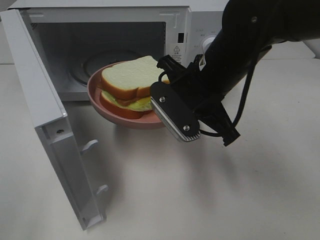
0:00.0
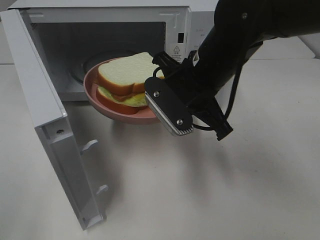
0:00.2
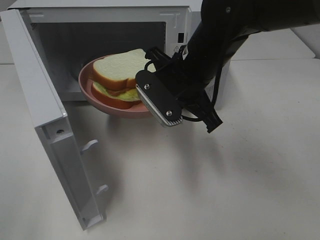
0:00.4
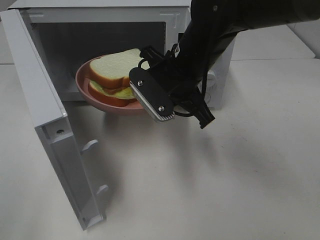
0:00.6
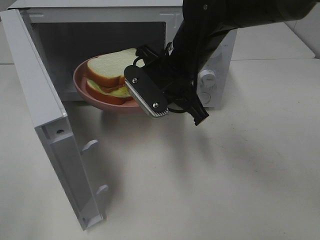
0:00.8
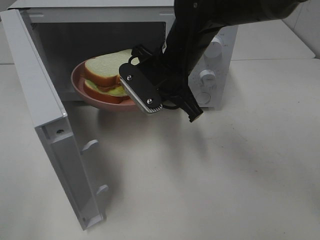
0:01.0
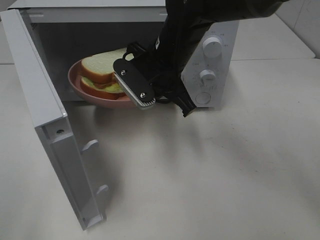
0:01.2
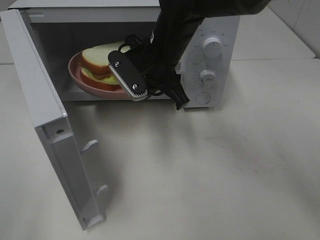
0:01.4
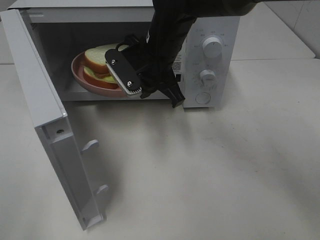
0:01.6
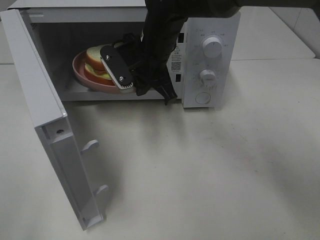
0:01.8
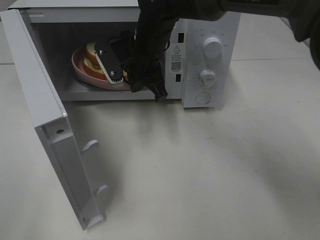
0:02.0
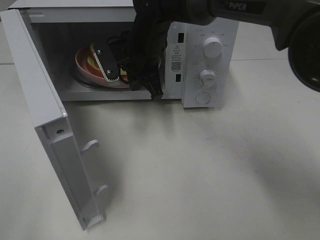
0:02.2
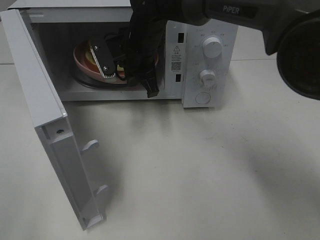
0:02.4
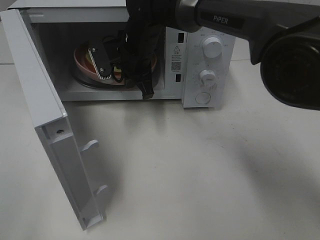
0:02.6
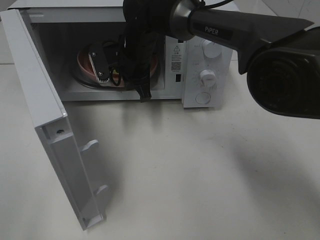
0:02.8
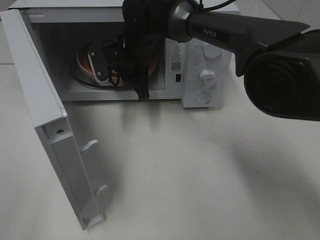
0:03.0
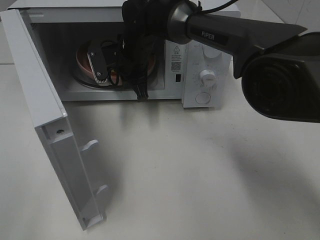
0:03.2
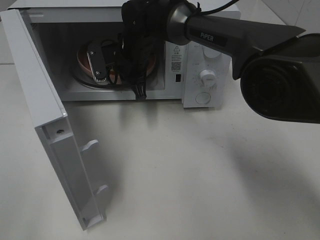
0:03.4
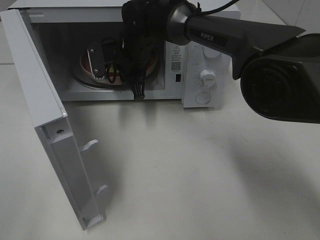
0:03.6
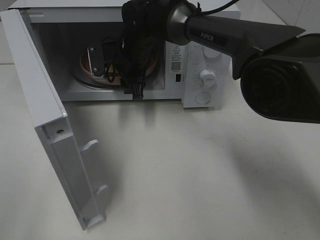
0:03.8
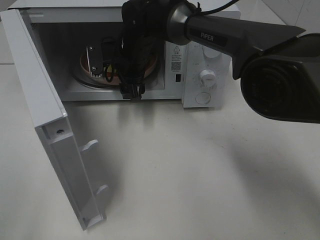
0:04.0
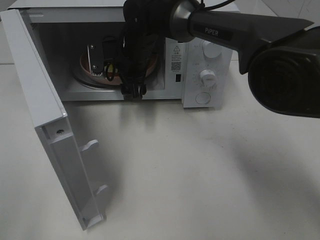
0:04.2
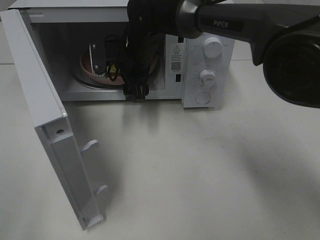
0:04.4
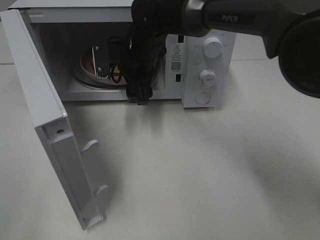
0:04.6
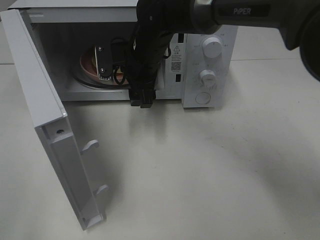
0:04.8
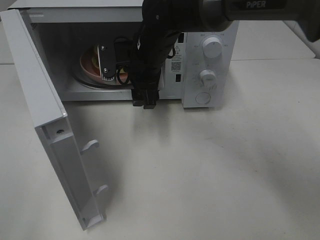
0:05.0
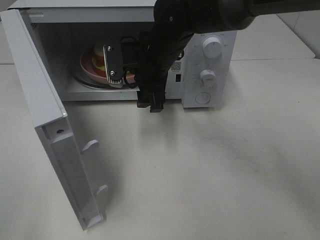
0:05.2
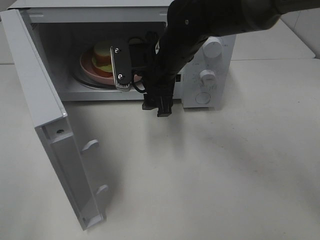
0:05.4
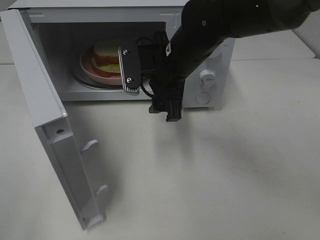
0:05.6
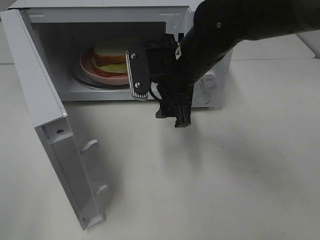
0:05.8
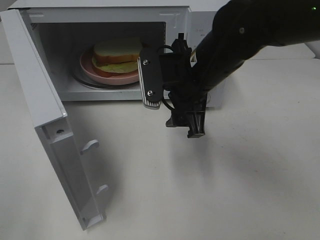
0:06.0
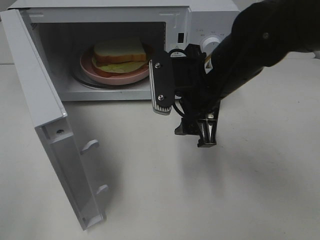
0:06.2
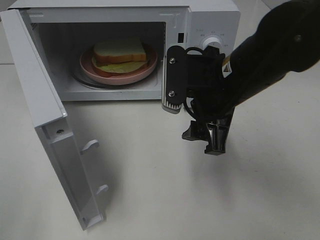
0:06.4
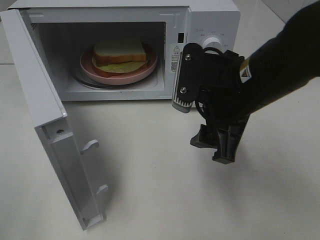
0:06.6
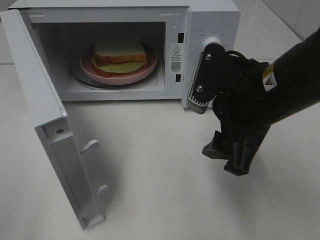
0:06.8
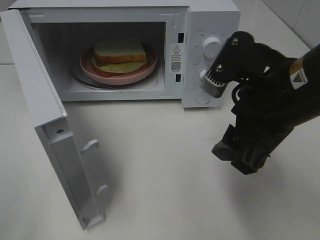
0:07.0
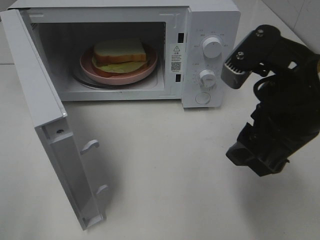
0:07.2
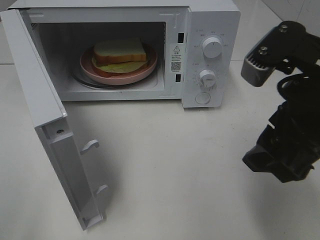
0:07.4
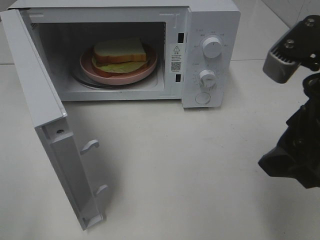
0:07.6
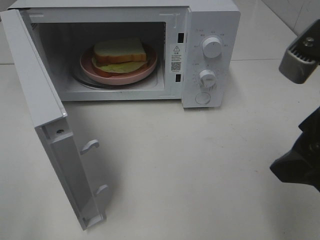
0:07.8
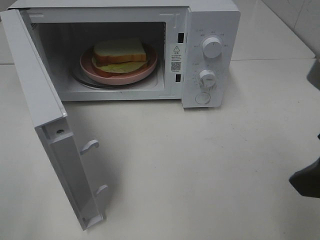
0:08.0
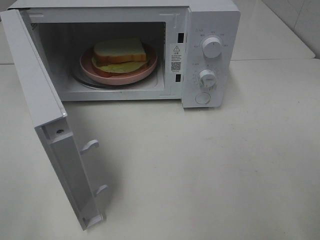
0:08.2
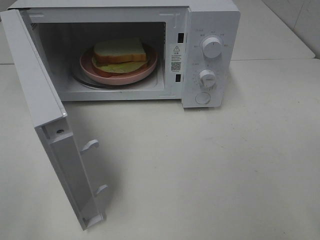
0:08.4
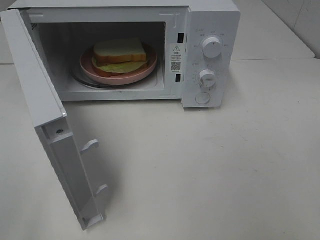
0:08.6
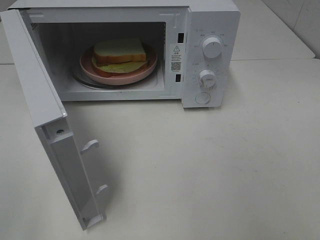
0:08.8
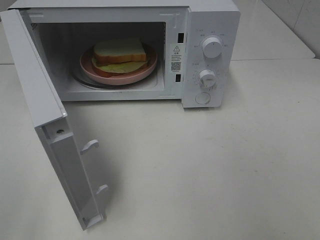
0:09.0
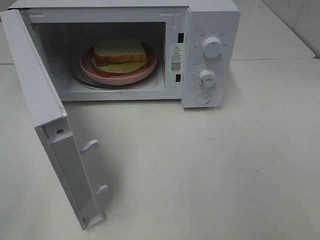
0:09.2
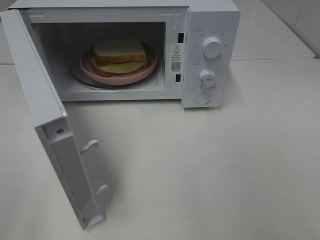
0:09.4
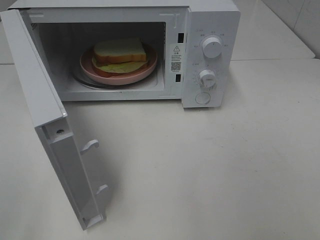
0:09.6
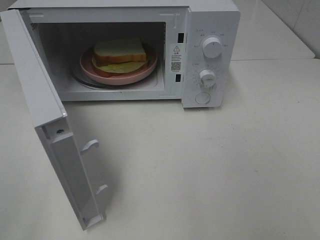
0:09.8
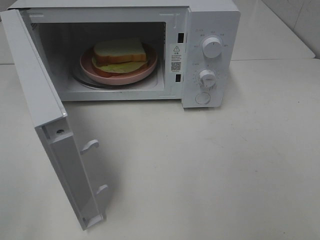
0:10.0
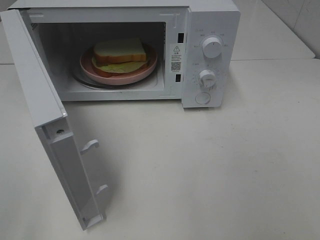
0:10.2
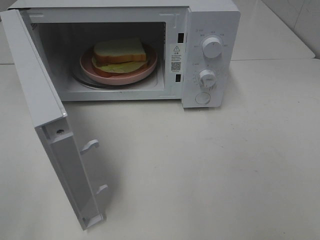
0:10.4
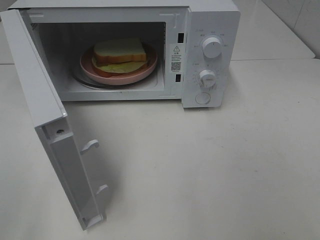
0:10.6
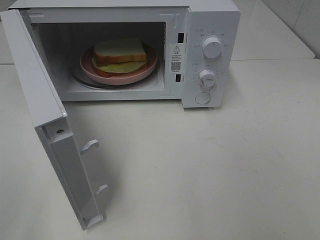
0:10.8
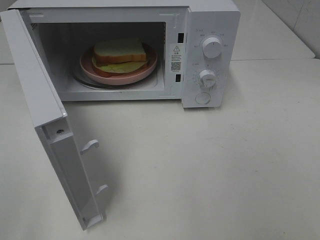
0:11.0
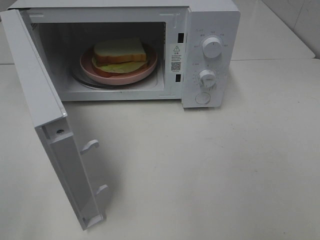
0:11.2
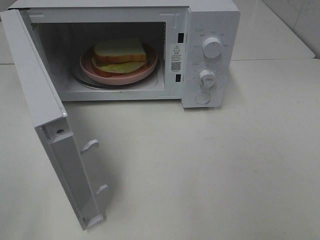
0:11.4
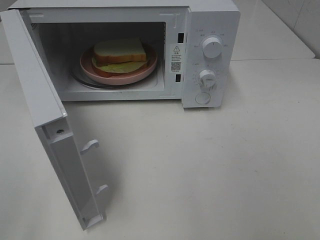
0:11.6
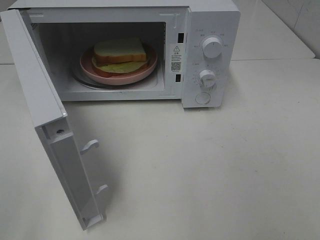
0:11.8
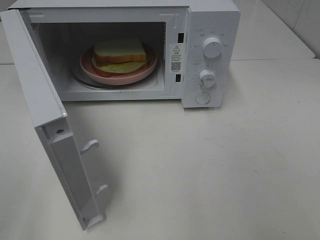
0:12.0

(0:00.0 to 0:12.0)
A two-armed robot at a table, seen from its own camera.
Task of the whole recording: Heat Sandwich.
Step, 0:00.0 - 0:04.2: Right hand: place the plate in the microwave.
0:00.0 - 0:01.6: The right gripper goes approximately 10 cm forward and to the left.
0:01.6 - 0:03.0: The right gripper is displaced forward by about 5 cm.
0:03.0 - 0:04.4: The right gripper opens up.
0:04.4 - 0:06.0: The right gripper goes about 15 cm backward and to the right.
0:06.0 - 0:07.6: The right gripper is displaced backward, to the right and upward by some 20 cm.
0:07.6 - 0:09.0: The right gripper moves to the right and backward, roughly 15 cm.

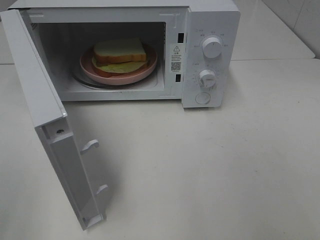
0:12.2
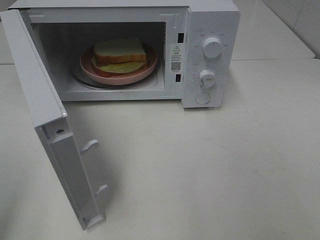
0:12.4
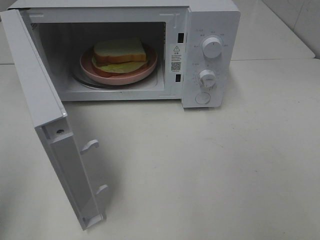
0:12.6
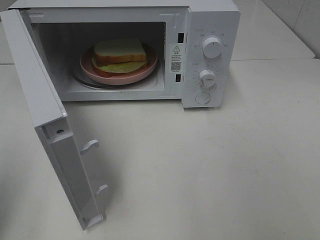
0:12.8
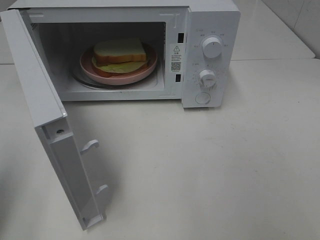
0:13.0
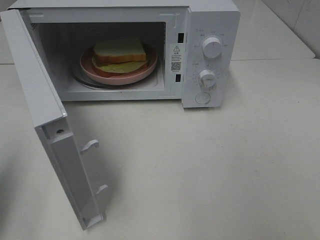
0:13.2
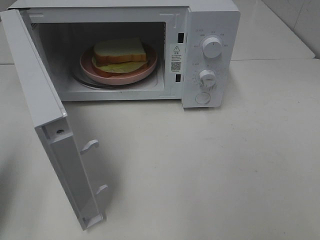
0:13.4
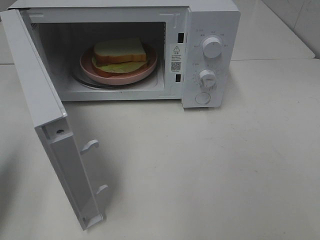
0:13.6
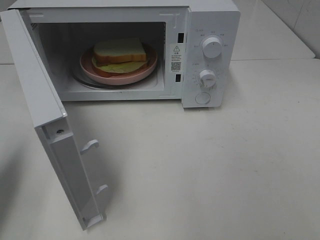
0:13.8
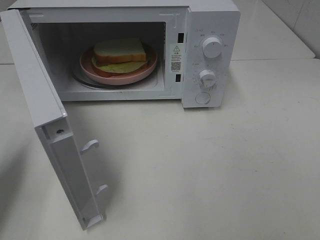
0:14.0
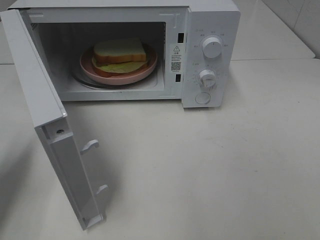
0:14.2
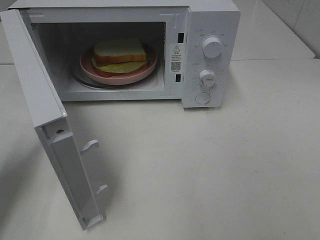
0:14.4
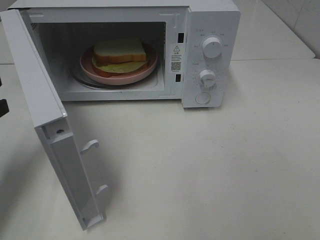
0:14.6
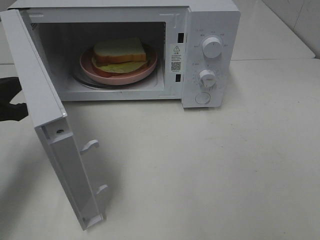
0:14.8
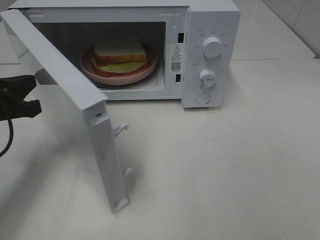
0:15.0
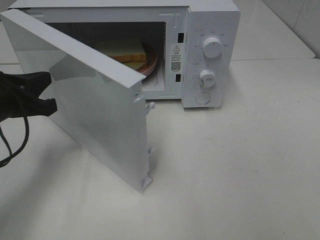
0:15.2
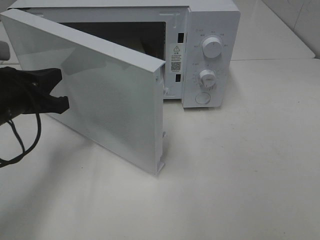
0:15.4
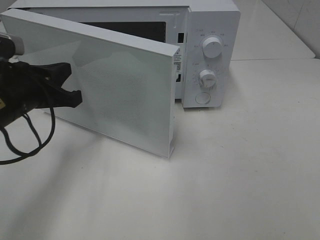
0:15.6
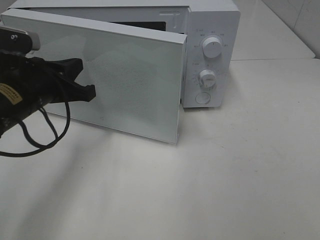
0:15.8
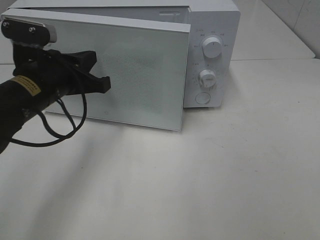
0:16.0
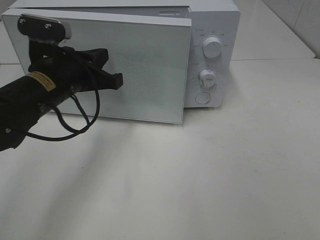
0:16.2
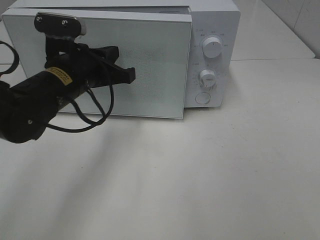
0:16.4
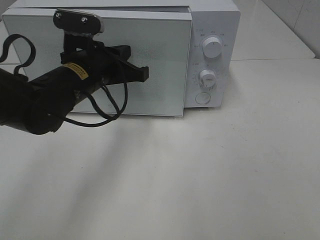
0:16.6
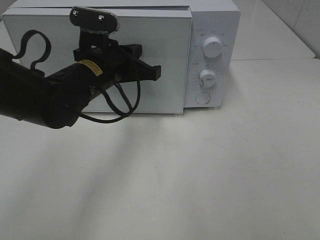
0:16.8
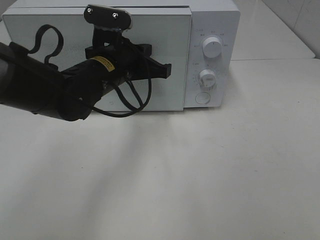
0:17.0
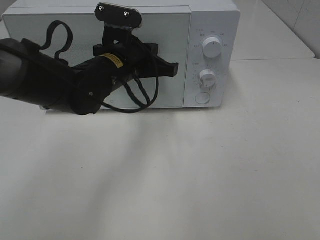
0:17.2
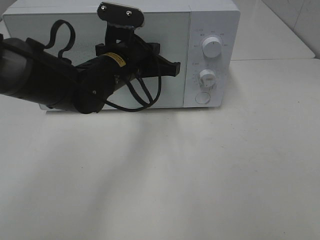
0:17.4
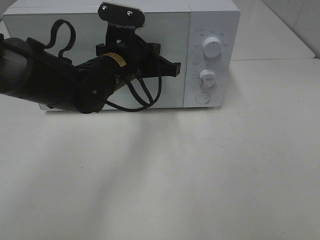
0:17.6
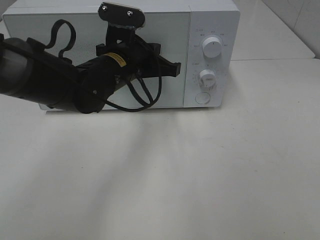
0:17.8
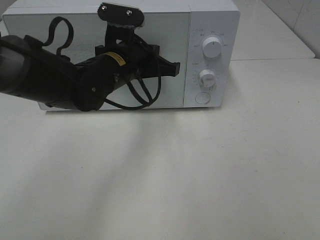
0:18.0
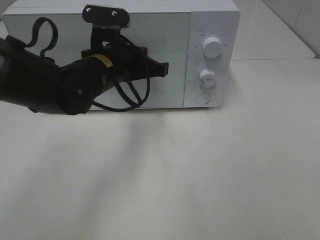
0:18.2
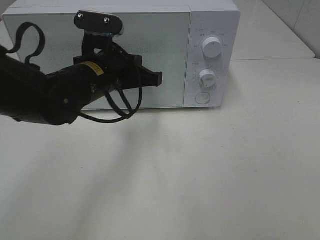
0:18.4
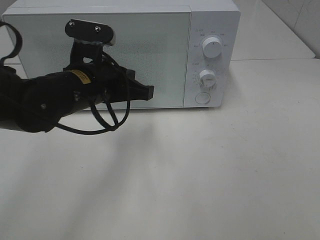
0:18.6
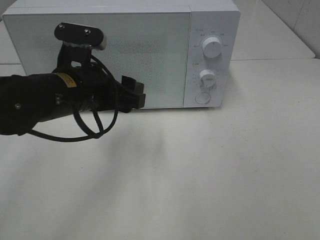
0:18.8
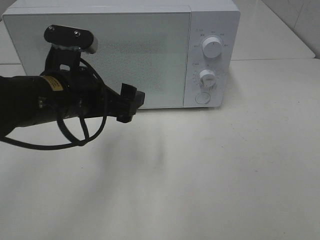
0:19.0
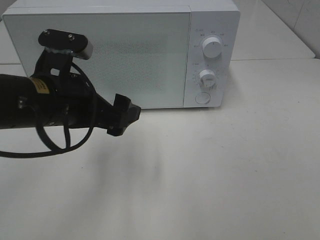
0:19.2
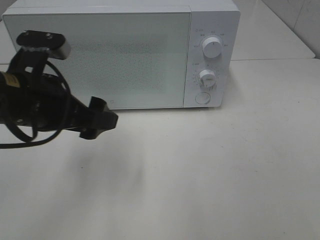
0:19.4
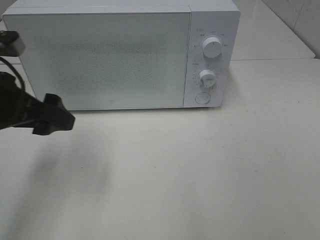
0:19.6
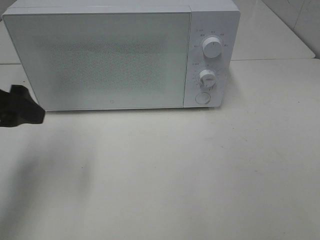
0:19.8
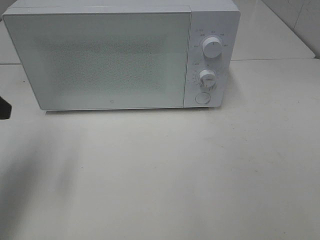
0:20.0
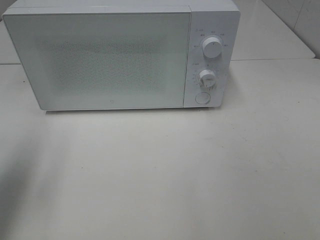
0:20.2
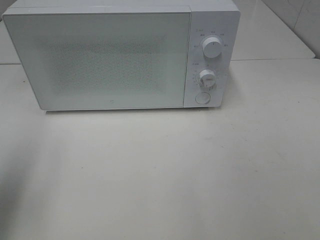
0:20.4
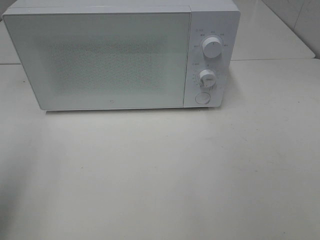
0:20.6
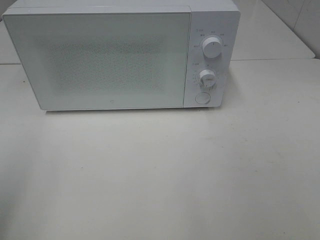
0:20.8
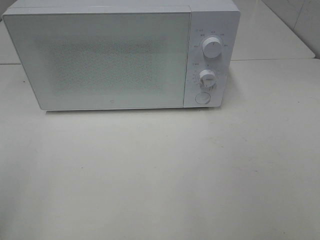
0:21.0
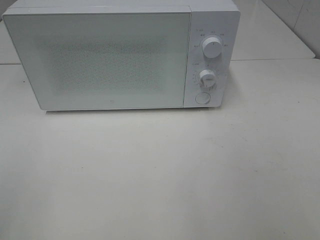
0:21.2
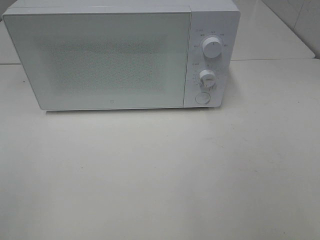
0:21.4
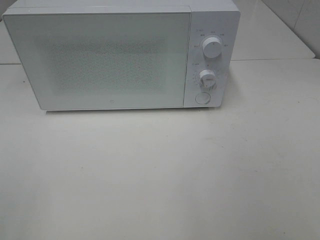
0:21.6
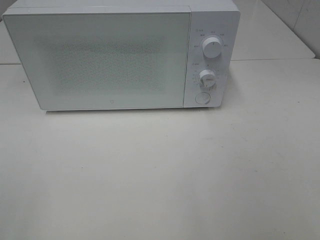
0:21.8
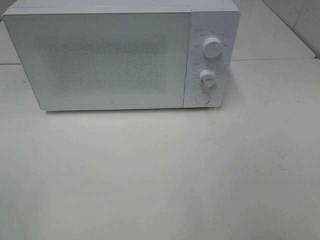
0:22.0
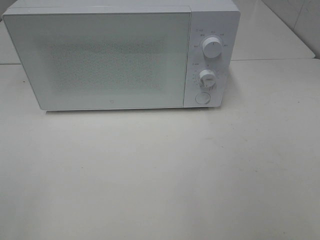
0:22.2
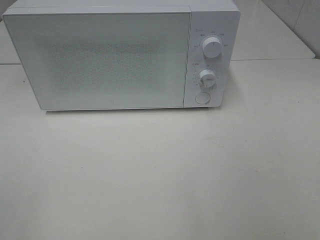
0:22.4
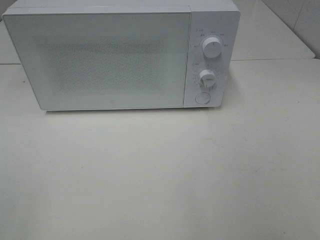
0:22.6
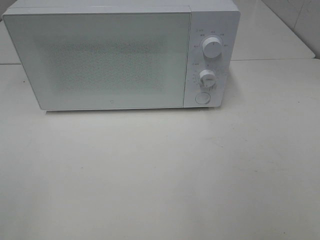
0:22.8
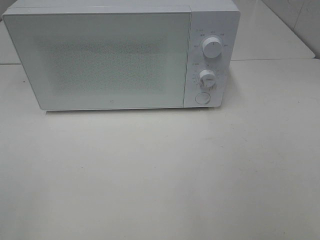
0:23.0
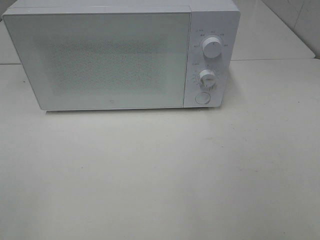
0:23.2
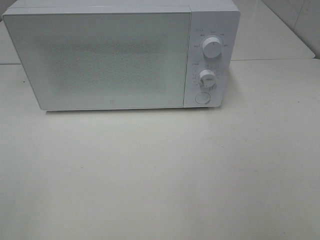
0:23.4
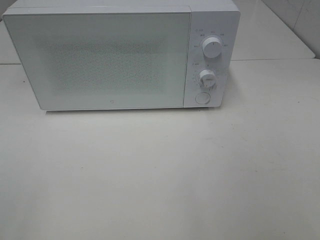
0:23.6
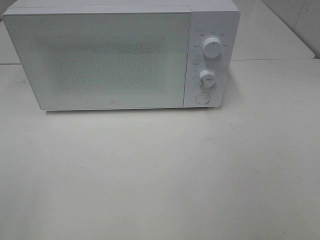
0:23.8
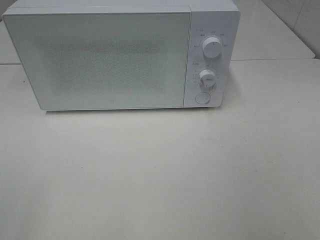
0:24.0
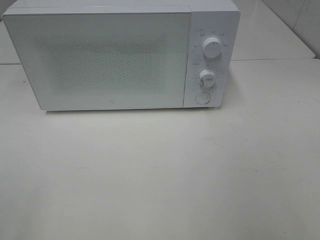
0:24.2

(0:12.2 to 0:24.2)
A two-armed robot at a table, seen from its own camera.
Task of the whole recording: Heat Sandwich.
Step, 0:12.2 - 0:18.4: Left hand: close the microwave door.
0:12.2 - 0:13.8: The left gripper is displaced forward and downward by roughly 15 cm, and closes up.
0:13.8 - 0:15.2: The left gripper moves to the right, forward and downward, some 15 cm.
0:15.2 - 0:16.6: The left gripper is displaced to the right and forward by some 15 cm.
0:16.6 - 0:18.2: The grippers move only a little.
0:18.2 - 0:19.8: The left gripper goes about 20 cm to the left and backward, and opens its fingers.
0:19.8 - 0:21.2: The left gripper is displaced backward by approximately 20 cm.
